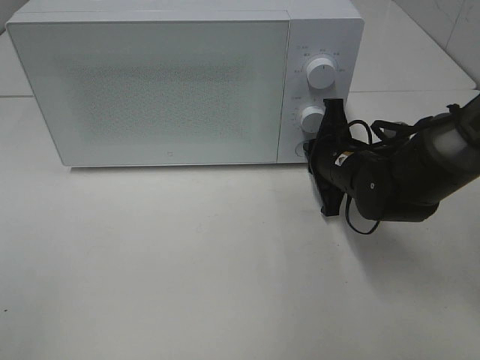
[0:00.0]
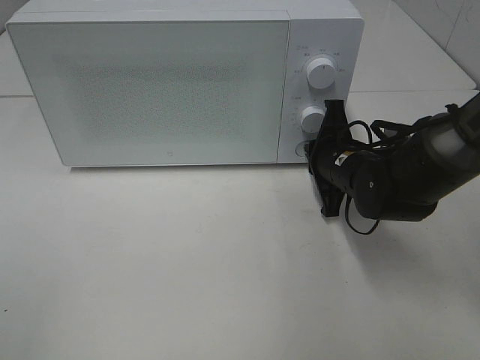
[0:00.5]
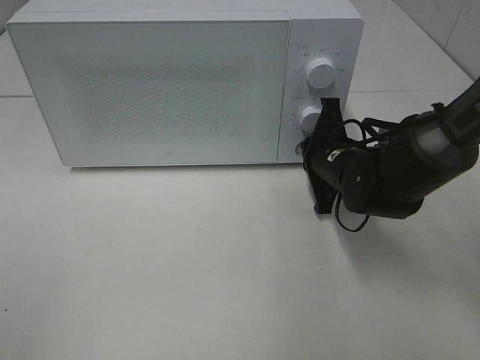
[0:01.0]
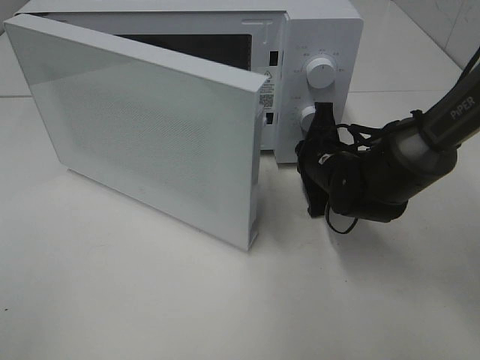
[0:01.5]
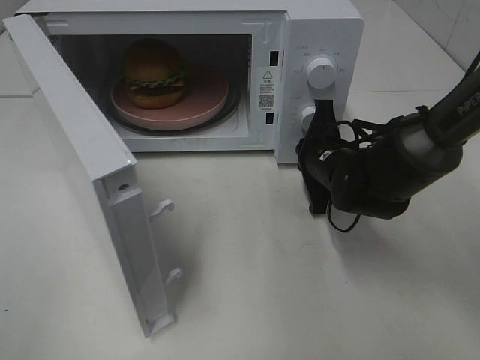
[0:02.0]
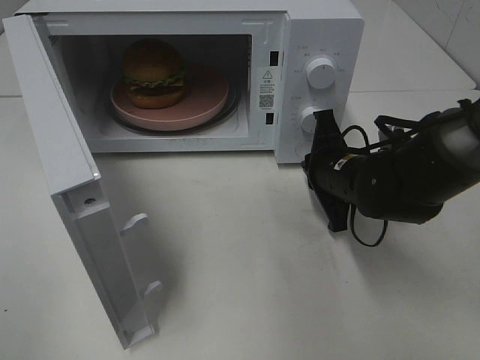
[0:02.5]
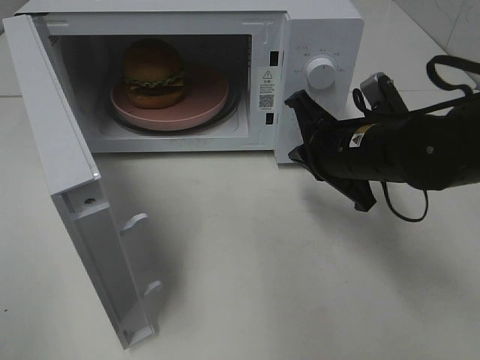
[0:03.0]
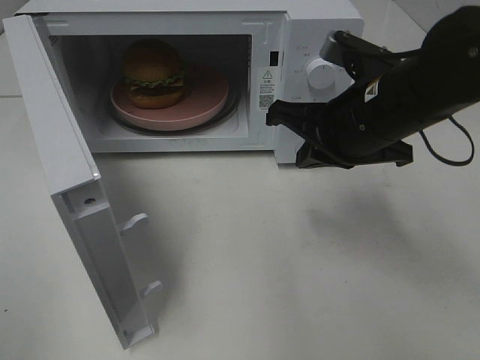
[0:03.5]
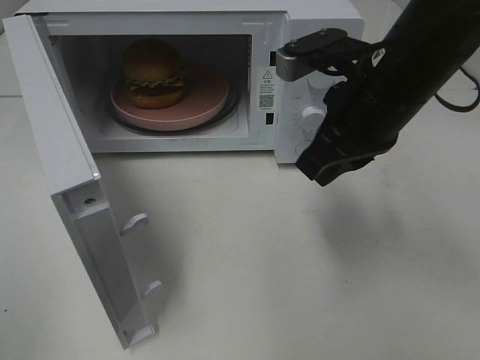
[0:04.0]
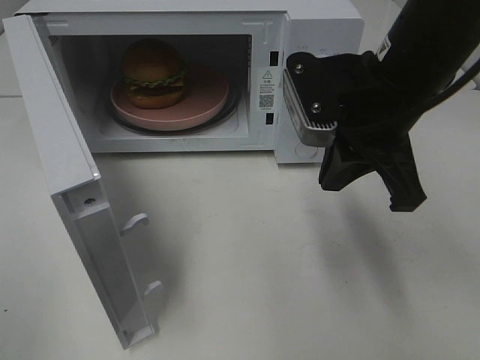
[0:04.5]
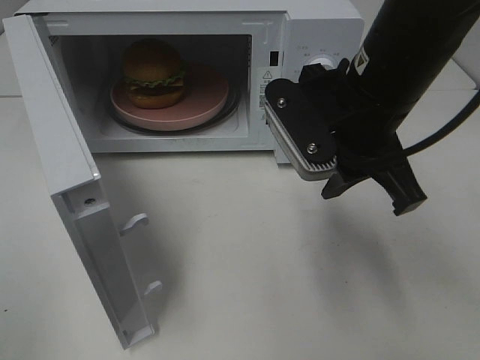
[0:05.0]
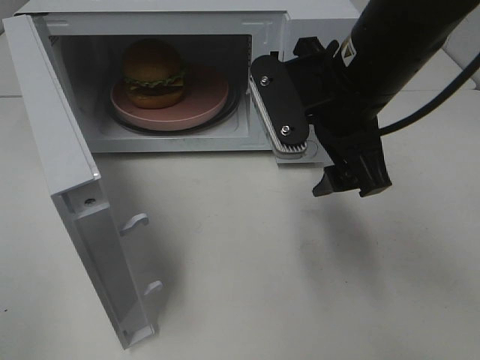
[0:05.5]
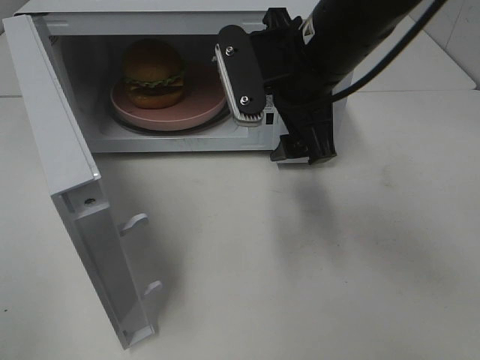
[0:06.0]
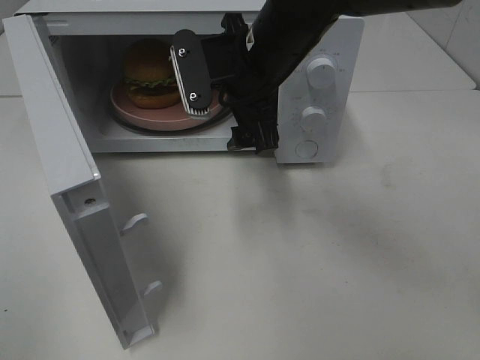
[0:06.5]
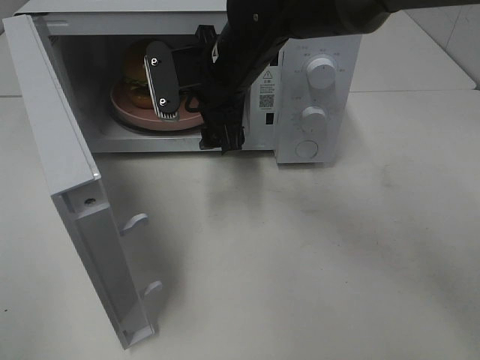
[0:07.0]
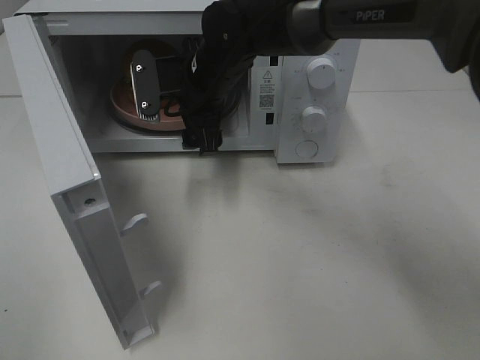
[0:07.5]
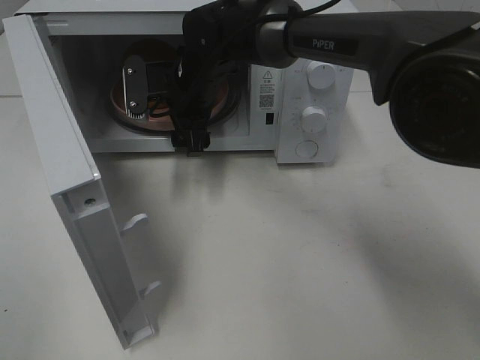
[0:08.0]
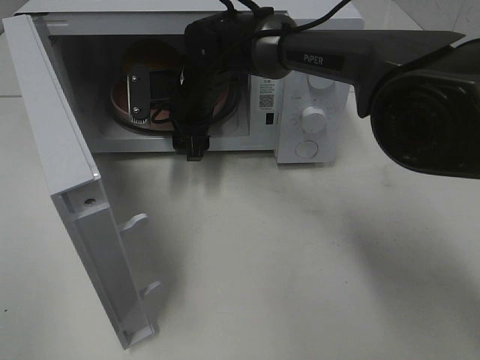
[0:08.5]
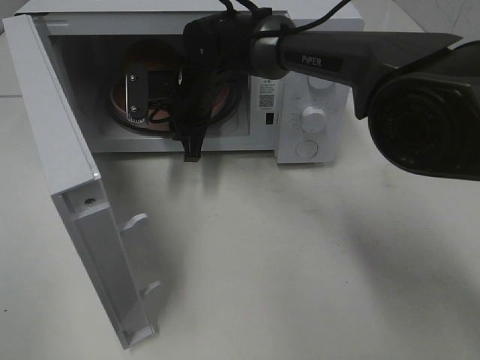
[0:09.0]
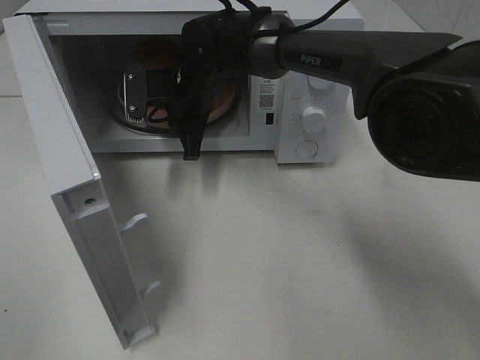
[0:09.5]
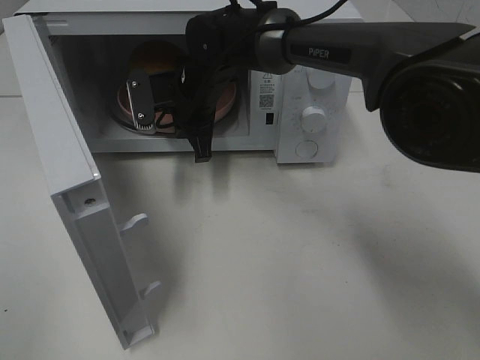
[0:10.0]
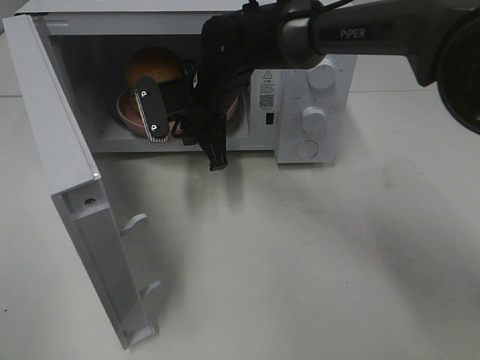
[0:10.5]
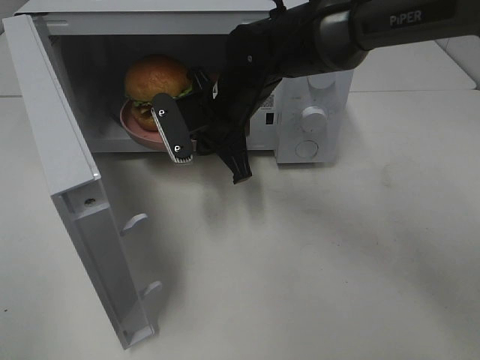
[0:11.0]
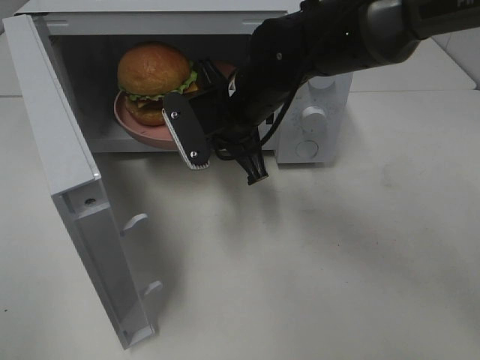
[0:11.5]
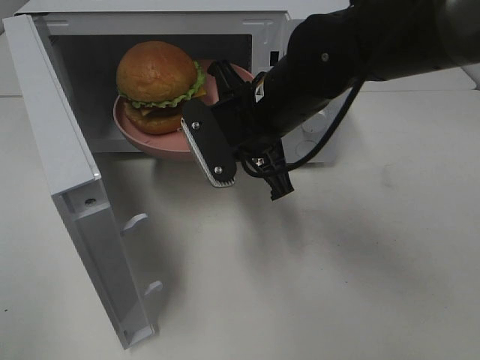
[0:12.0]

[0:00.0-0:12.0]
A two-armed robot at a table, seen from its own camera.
Task of the whole recording: Heat the burger.
Step, 0:00.0 to 0:02.5: Right hand: press the switch.
Step, 0:03.0 to 0:09.0: Right hand: grab the plate with the hamburger.
0:02.0 to 0:04.0: The right gripper heads upward and backward, covering some 20 cm.
0:04.0 to 0:06.0: The right gripper travels to the left by approximately 5 cm, and opens up.
0:06.0 to 0:08.0: The right gripper travels forward, to the left and downward by roughly 20 cm.
0:08.0 to 0:10.0: The right gripper closes.
0:10.0 to 0:12.0: The right gripper travels backward and to the right by some 15 cm.

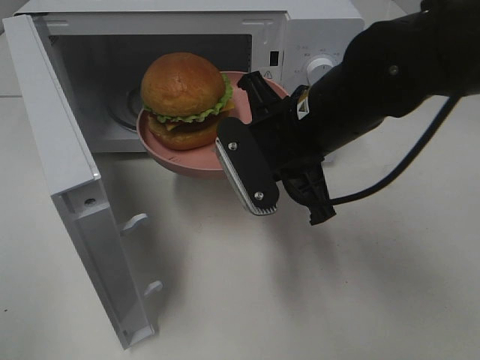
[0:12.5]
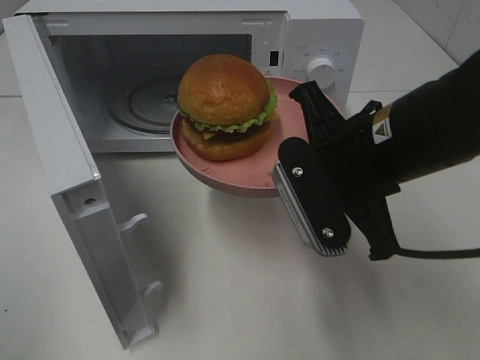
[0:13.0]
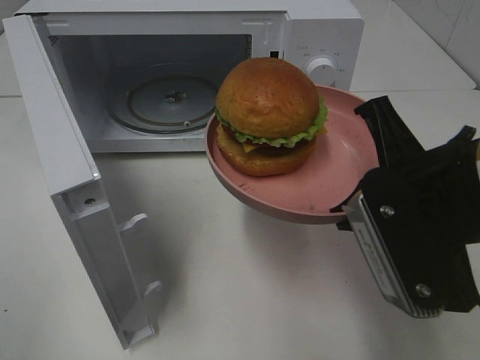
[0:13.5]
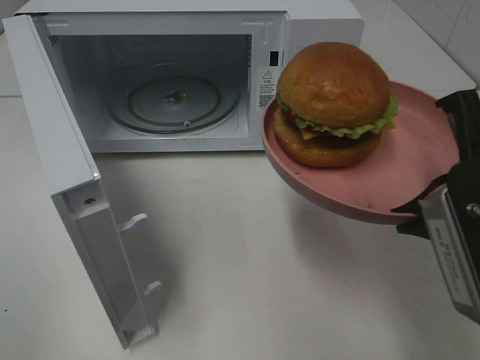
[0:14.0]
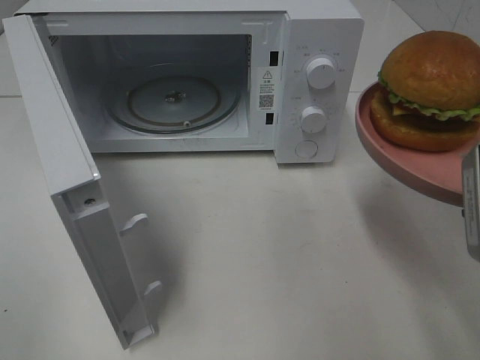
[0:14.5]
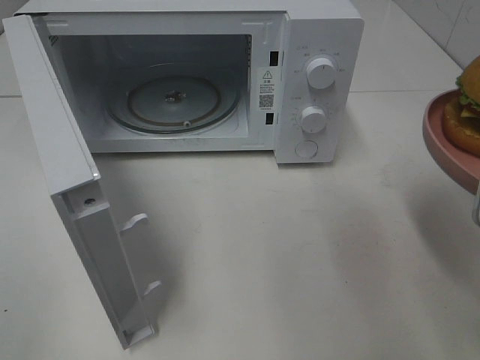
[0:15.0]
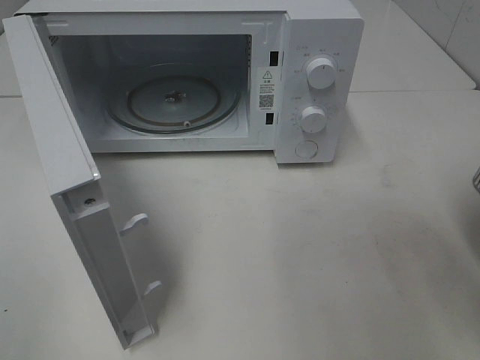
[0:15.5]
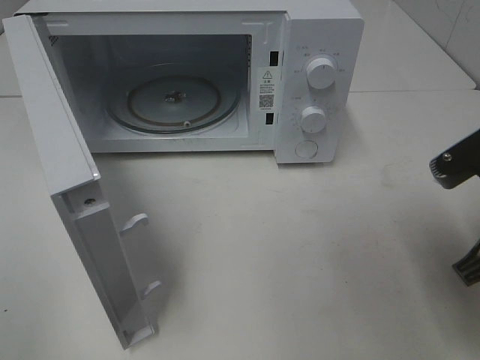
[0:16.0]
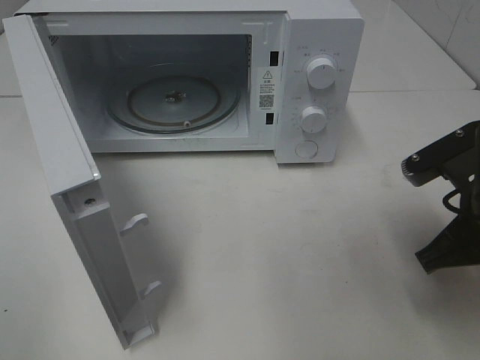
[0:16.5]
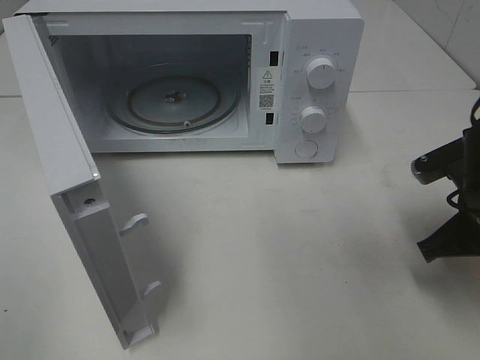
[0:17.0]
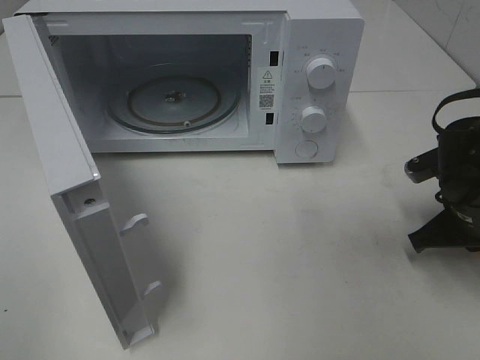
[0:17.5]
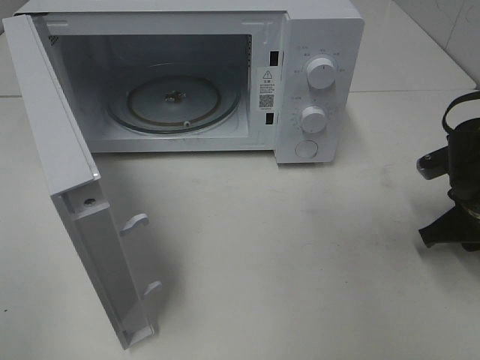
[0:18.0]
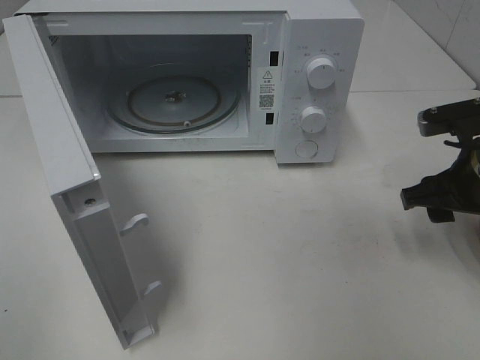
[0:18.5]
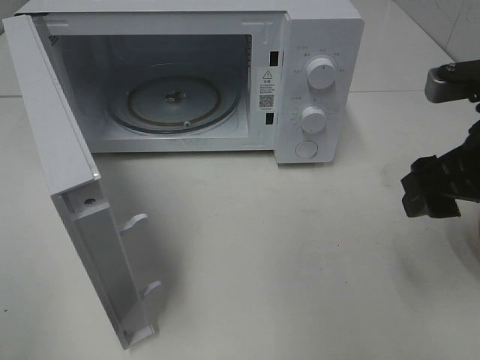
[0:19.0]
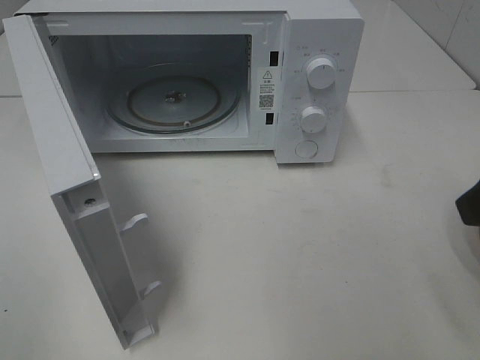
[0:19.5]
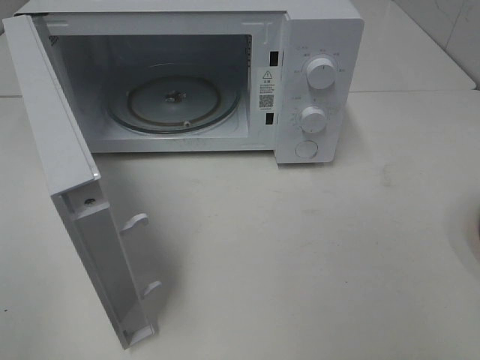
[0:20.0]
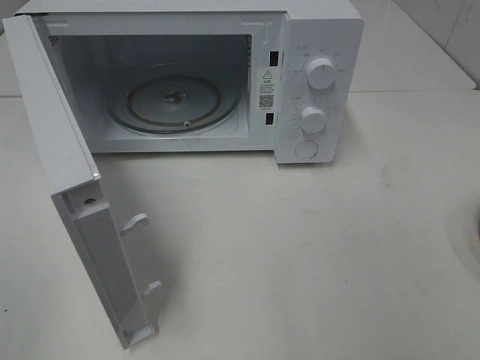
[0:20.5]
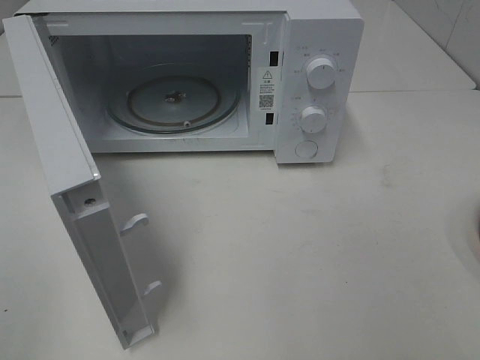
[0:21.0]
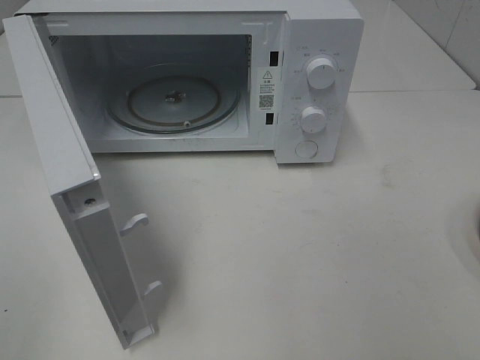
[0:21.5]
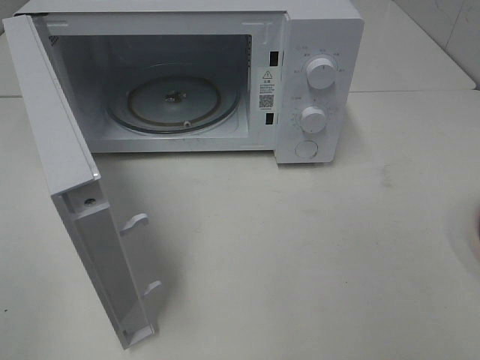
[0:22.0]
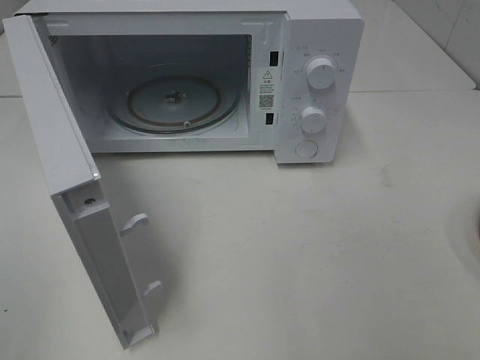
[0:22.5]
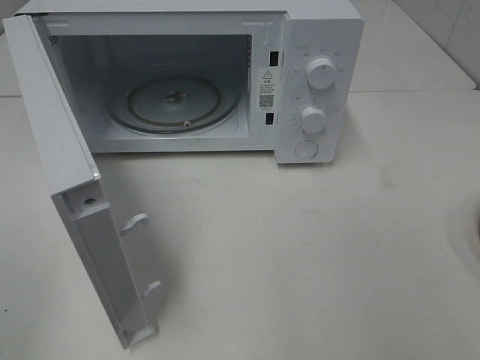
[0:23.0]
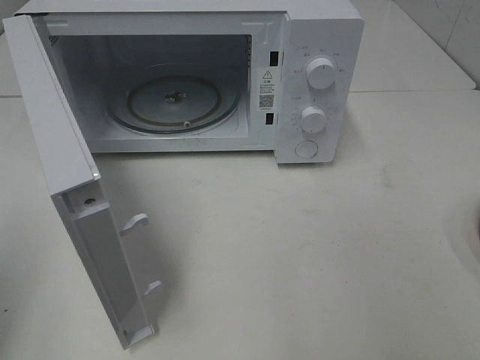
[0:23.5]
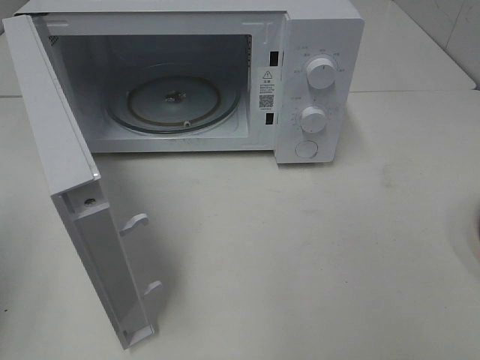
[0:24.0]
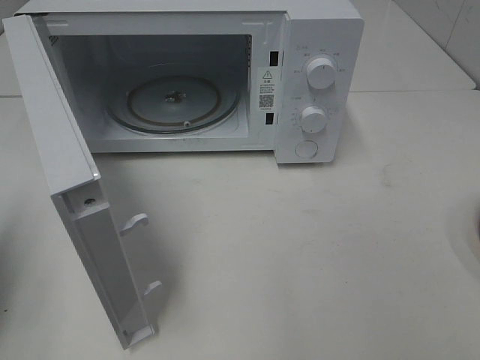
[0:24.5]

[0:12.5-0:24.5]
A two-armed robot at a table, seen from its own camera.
Task of the whole recording: Heat the burger.
Step, 0:12.5 to 0:18.0: Right hand: place the plate on the table.
0:12.5 to 0:14.5: The right gripper goes some 20 cm to the right and backward.
0:14.5 to 0:16.5: The right gripper heads downward and forward, covering about 10 cm.
0:16.5 to 0:18.5: The right gripper shifts approximately 5 cm forward, and opens its fingers.
0:18.5 to 0:20.5: The right gripper moves backward and upward, about 30 cm.
0:22.5 to 0:24.5: The left gripper travels forward and downward by some 20 cm, and closes up.

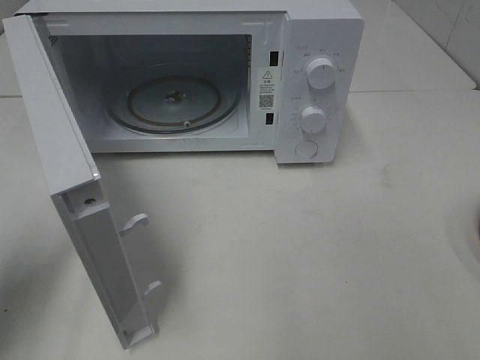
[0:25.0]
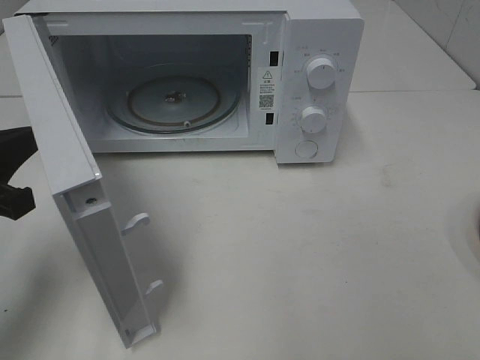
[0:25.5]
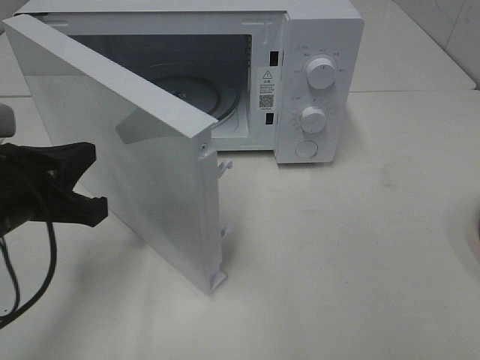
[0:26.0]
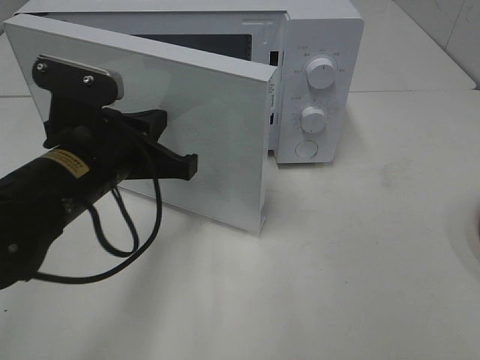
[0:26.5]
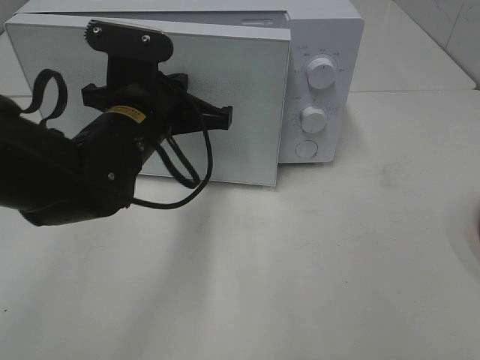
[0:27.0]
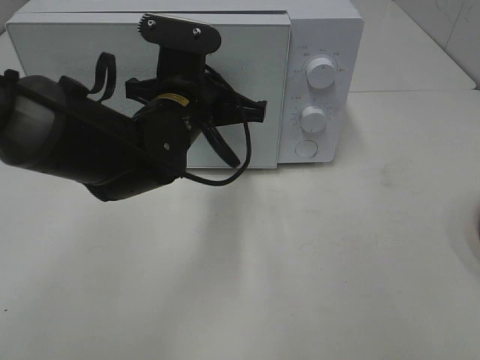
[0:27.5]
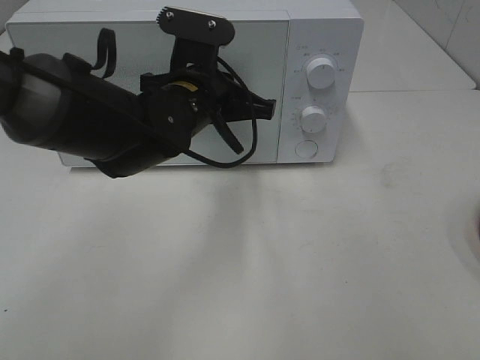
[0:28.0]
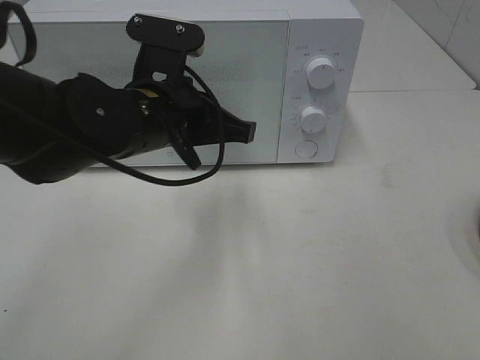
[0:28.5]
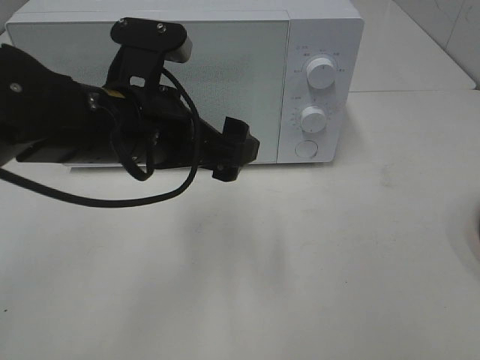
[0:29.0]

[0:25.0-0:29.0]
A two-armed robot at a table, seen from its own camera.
Task of the whole recording: Heat the burger.
0:25.0 to 0:27.0: The left gripper moves to the right and forward, some 25 cm.
0:27.0 to 0:29.0: The left gripper goes approximately 5 cm backward, and opens.
